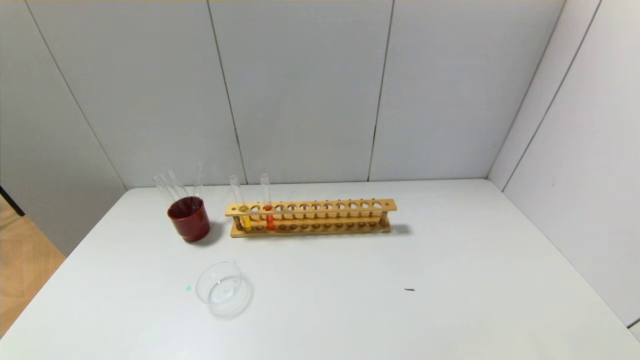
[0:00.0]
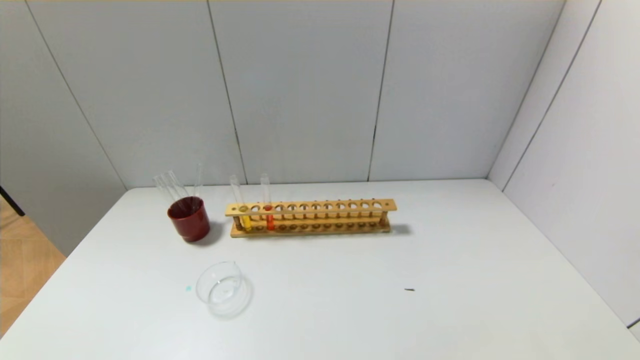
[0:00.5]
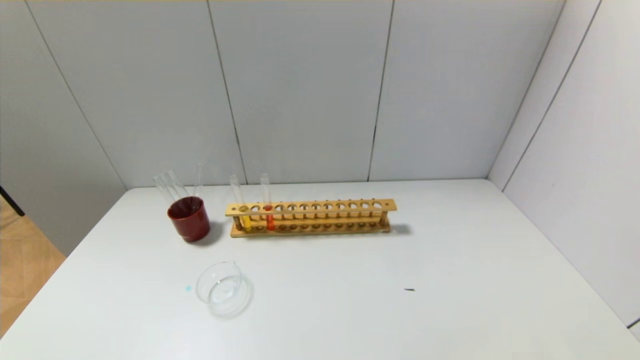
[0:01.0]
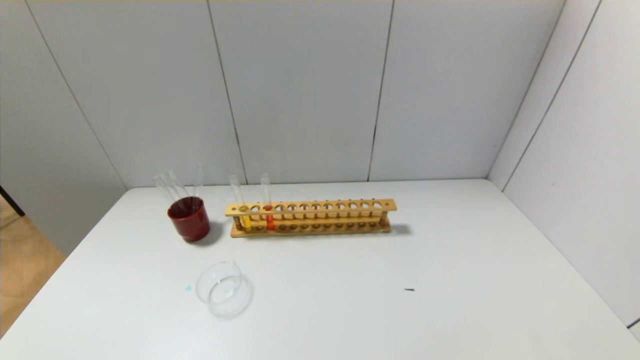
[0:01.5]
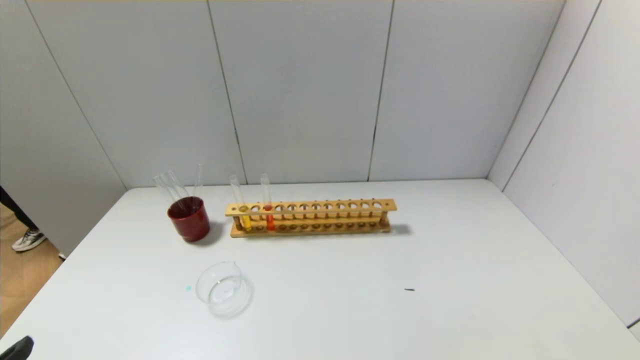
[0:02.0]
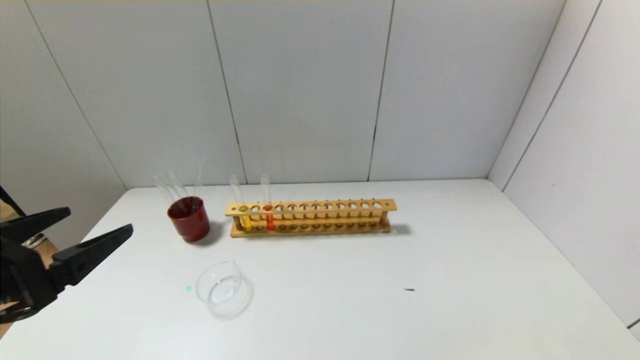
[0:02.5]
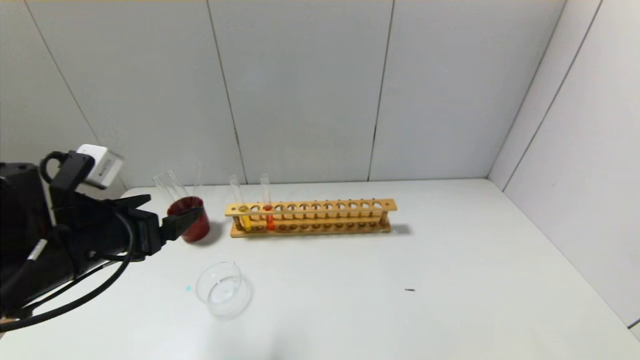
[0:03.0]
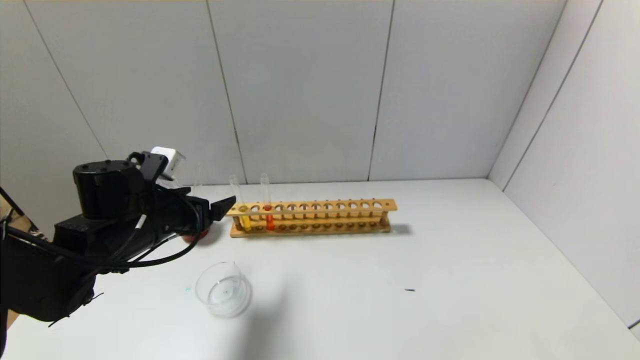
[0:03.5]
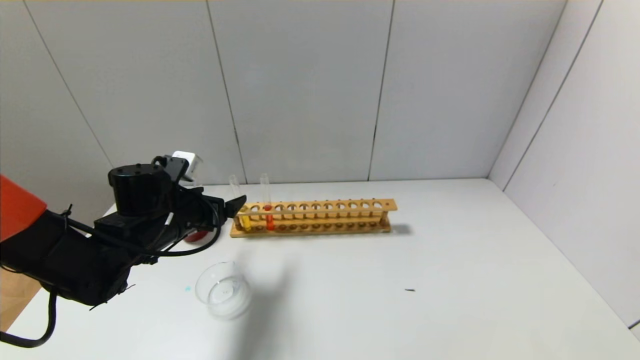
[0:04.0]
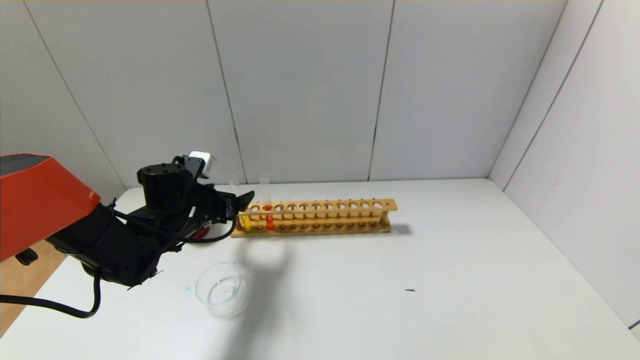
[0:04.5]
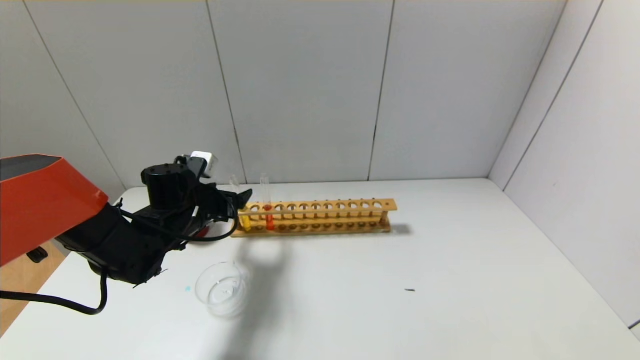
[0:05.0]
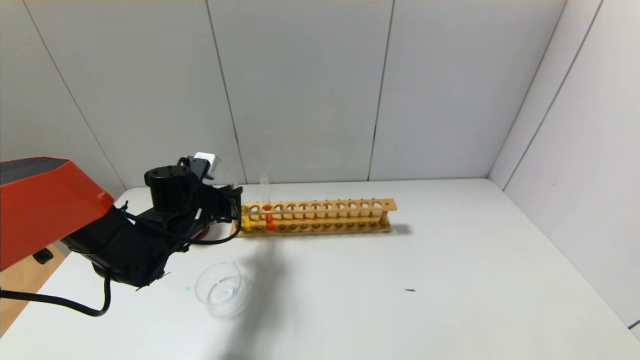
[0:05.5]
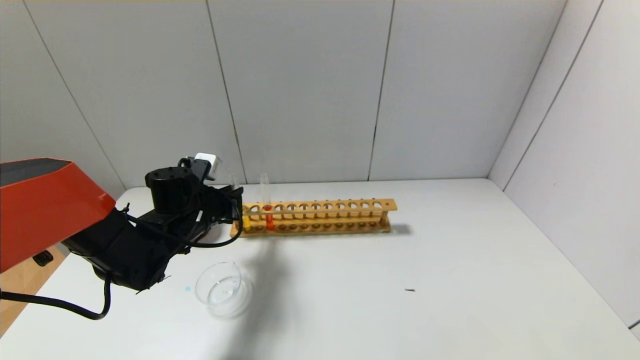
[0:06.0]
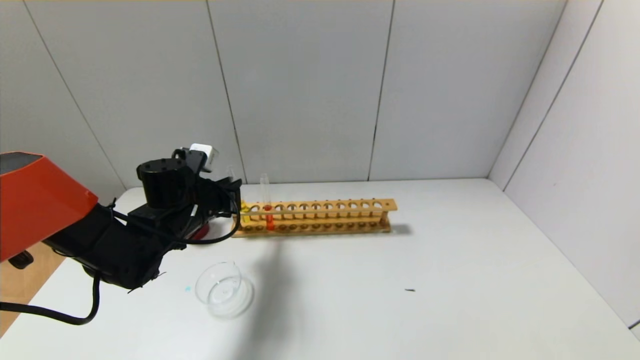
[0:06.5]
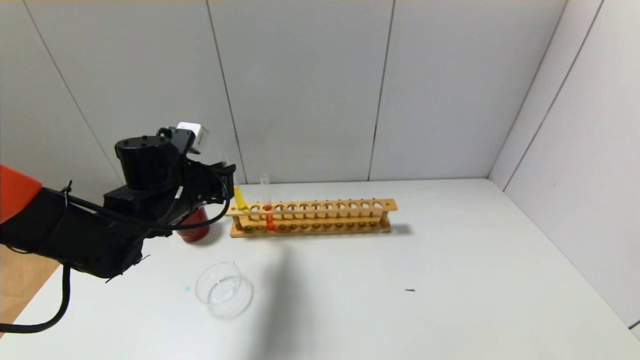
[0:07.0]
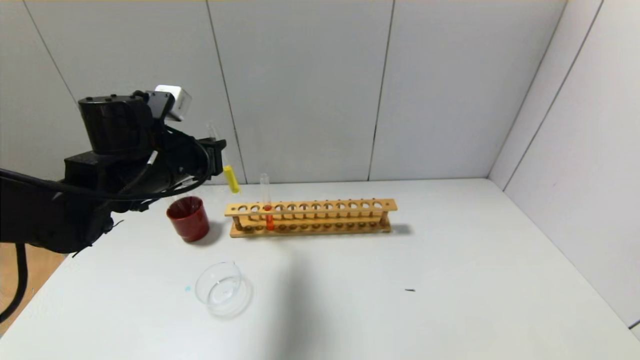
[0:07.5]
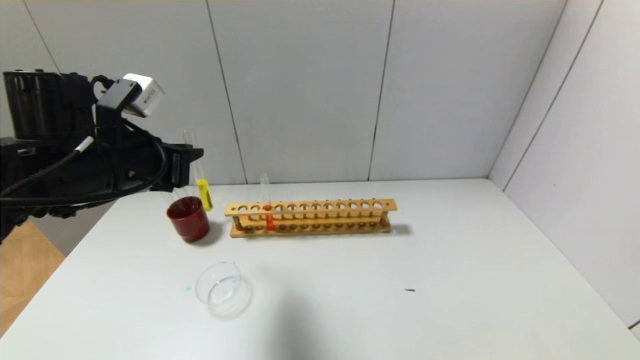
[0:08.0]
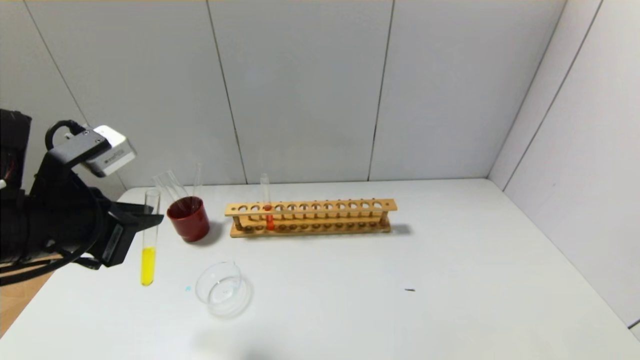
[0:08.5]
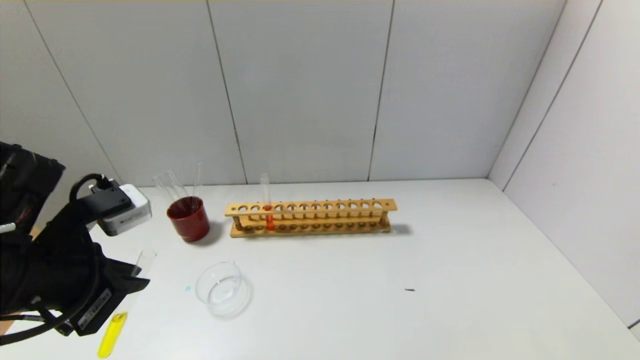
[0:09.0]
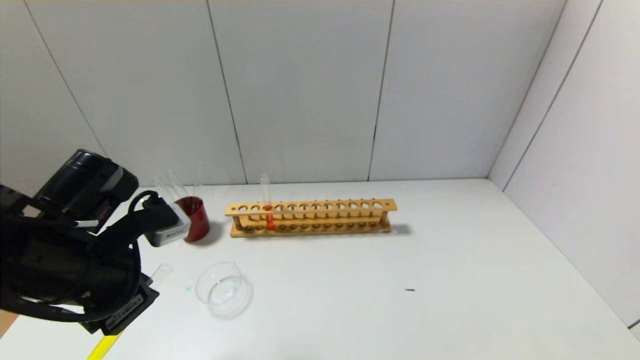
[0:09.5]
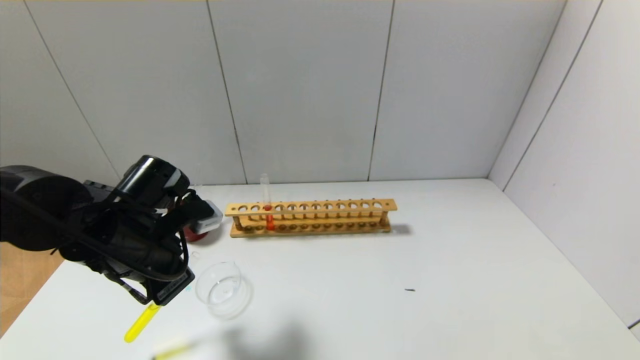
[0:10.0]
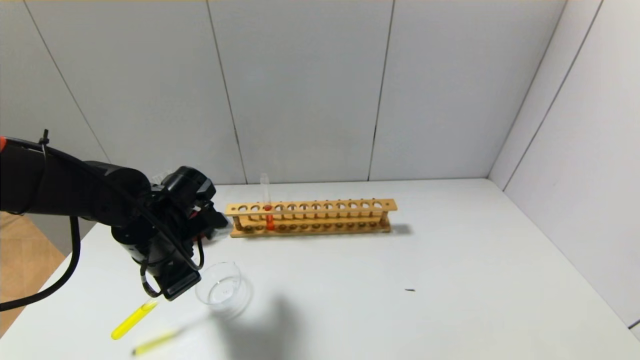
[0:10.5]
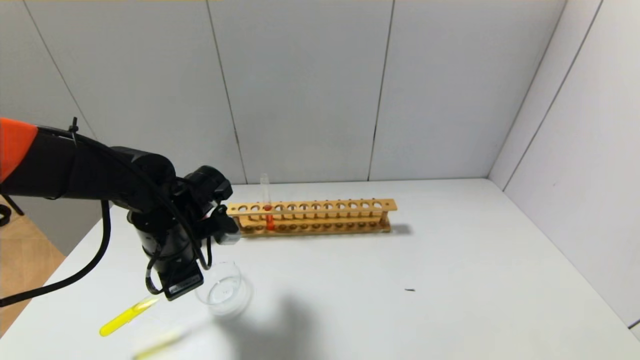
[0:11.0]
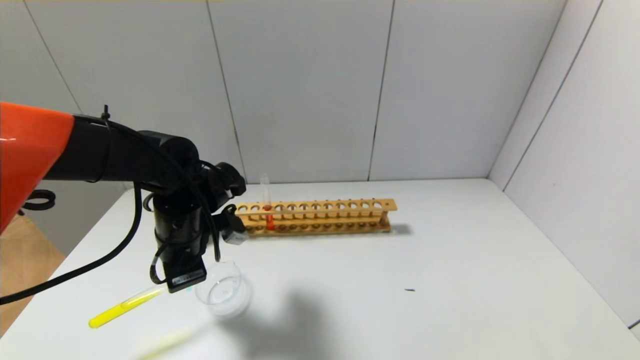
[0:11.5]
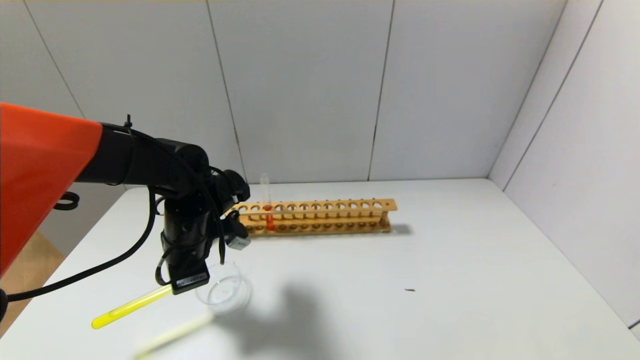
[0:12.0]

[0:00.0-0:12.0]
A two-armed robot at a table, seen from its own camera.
Step, 0:00.0 to 0:05.5: Grasp the yellow reagent with the left gripper.
0:00.0 to 0:02.0: The left gripper is displaced upward by roughly 10 cm.
0:02.0 to 0:04.0: The left gripper shifts approximately 30 cm forward.
0:04.0 to 0:06.0: The left gripper moves some 5 cm, and closes.
0:06.0 to 0:08.0: The left gripper goes some 20 cm upward and backward.
0:08.0 to 0:10.0: The left gripper moves downward, approximately 10 cm, and travels backward and back again, approximately 10 cm each way.
0:10.0 to 0:12.0: The left gripper goes approximately 5 cm forward.

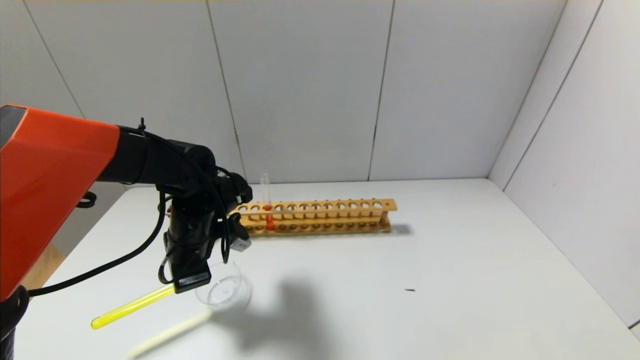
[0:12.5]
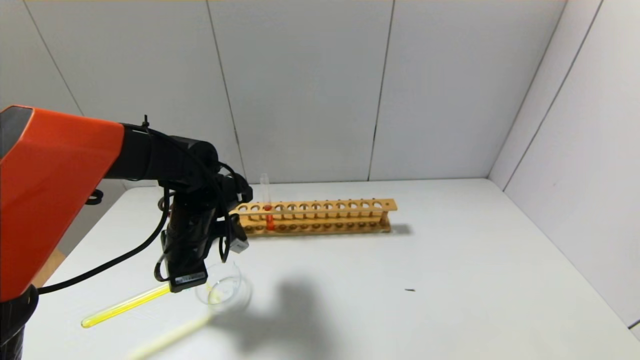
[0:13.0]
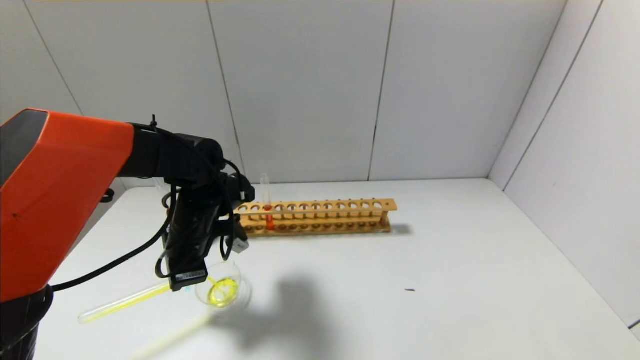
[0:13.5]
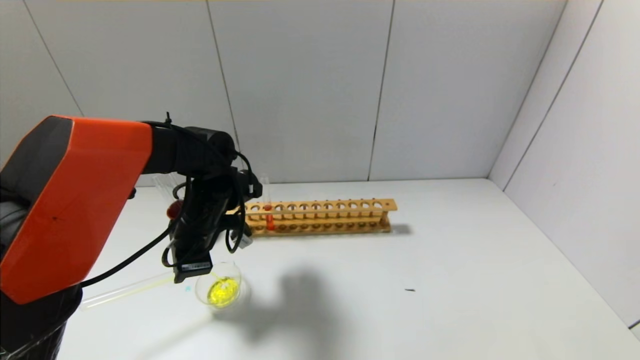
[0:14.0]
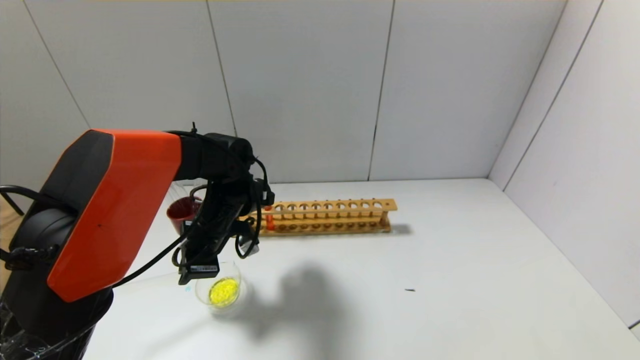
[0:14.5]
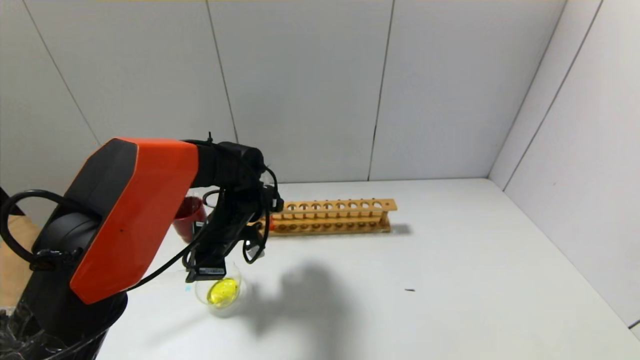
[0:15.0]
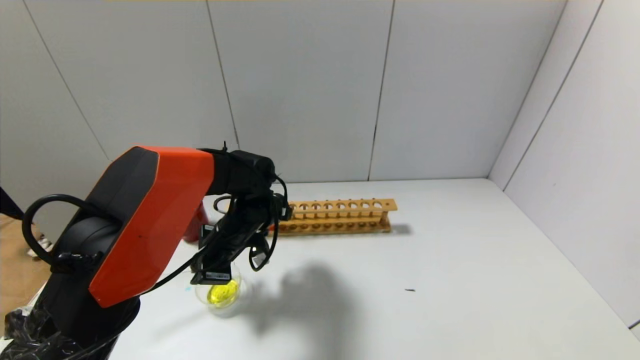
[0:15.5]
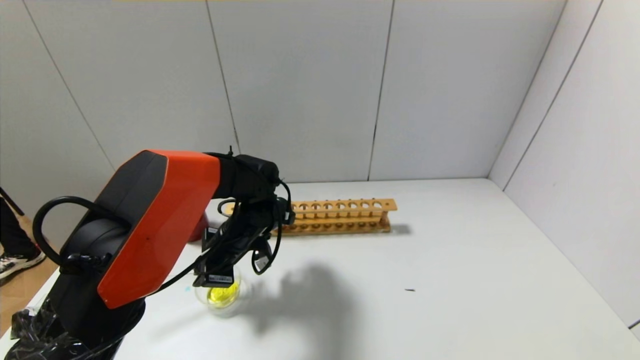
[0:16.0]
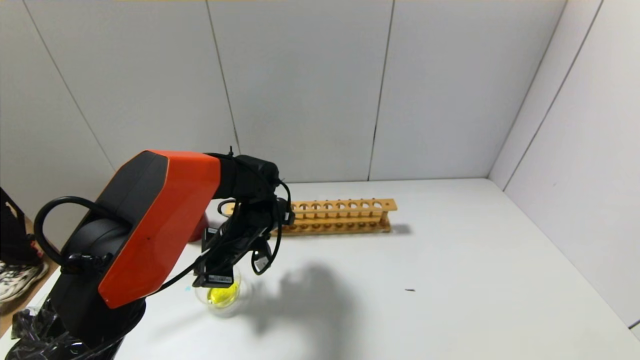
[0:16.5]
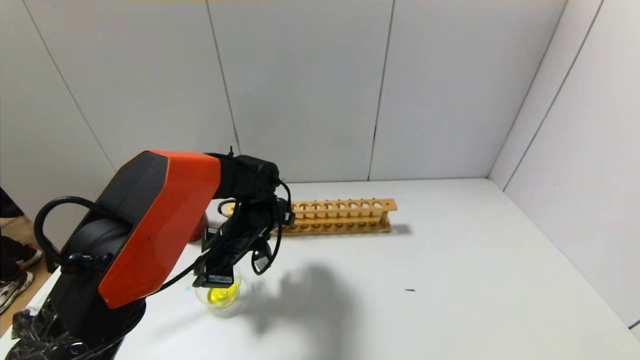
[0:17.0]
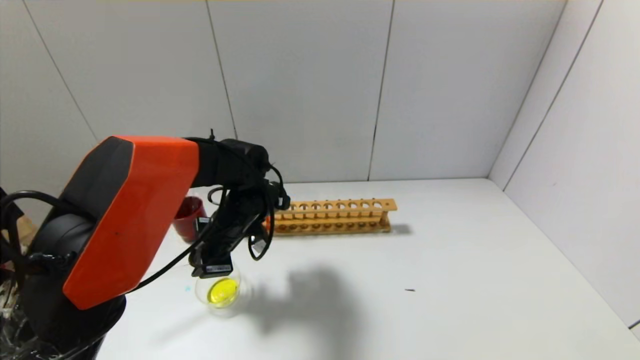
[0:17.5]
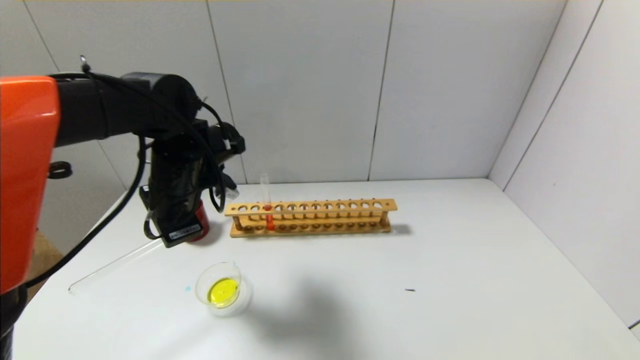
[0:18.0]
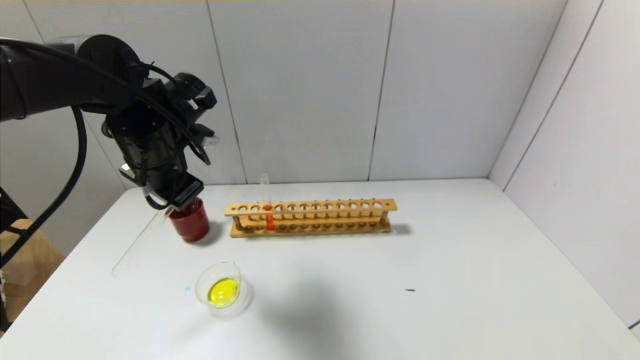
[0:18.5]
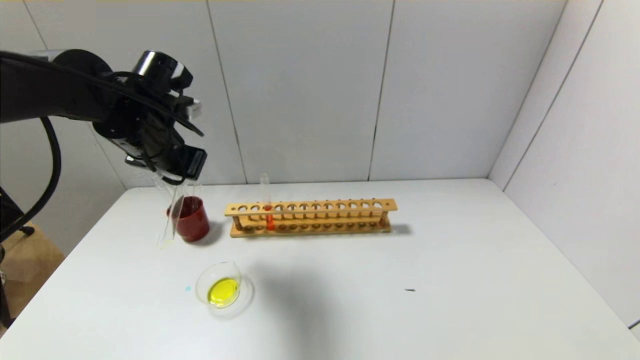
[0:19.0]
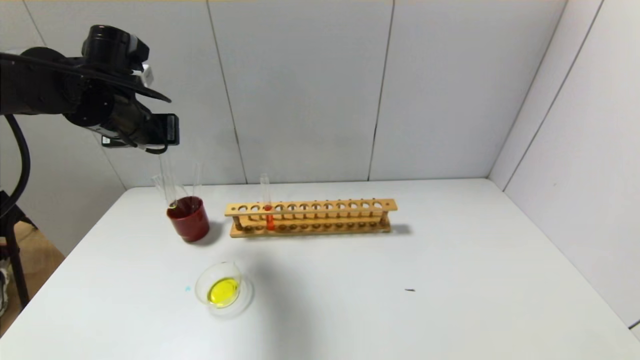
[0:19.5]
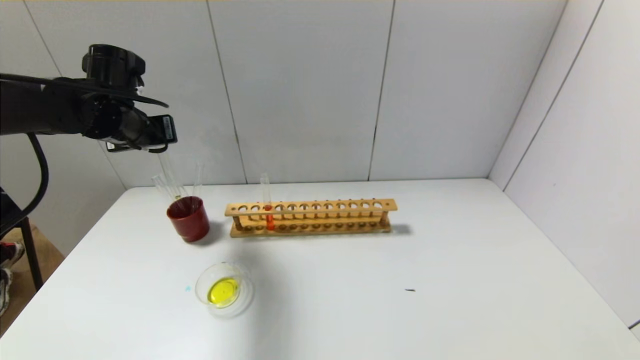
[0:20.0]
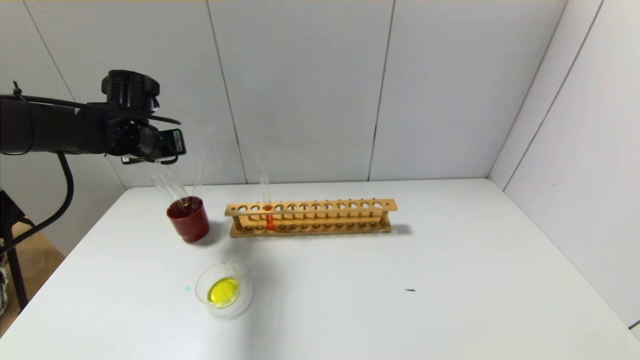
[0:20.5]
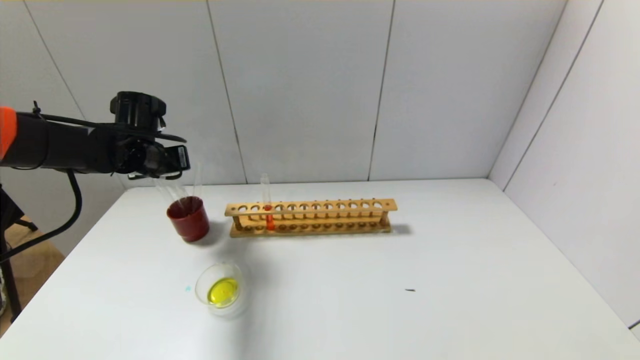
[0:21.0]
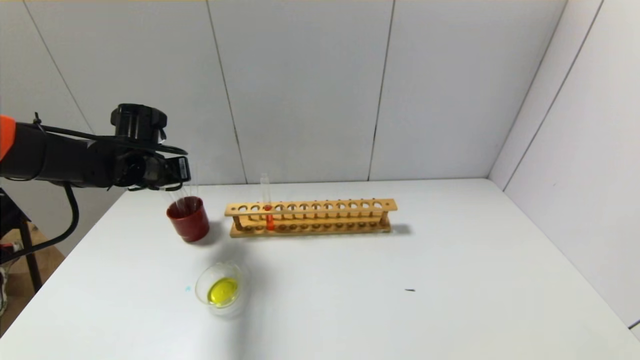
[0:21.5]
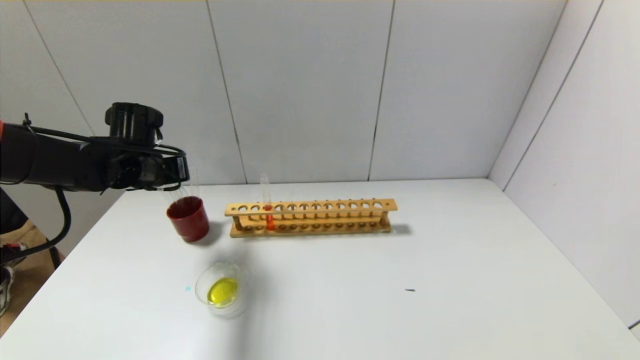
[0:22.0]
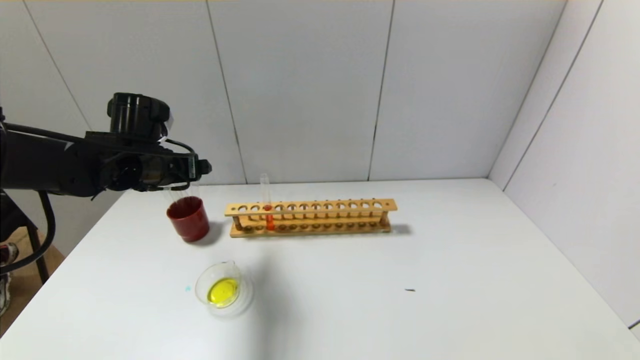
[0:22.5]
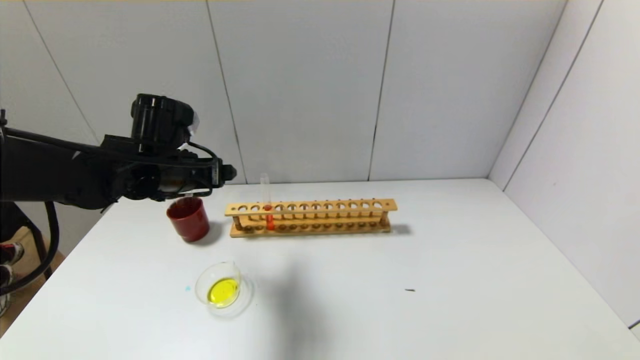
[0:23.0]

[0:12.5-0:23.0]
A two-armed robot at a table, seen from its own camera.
Step, 0:12.5 to 0:17.5: Pour the yellow reagent into the graduated cylinder with the left gripper.
Step, 0:18.0 to 0:21.5: Place the test tube into the brown cup with the left gripper.
0:14.5 to 0:16.5: The grippers stay close to where they were, moving slightly.
0:16.5 to 0:19.0: The left gripper moves upward and to the left, some 20 cm.
0:19.0 to 0:21.0: The left gripper goes some 10 cm downward, forward and to the left.
0:21.0 to 0:23.0: The left gripper moves to the right and backward, about 10 cm, and opens up.
